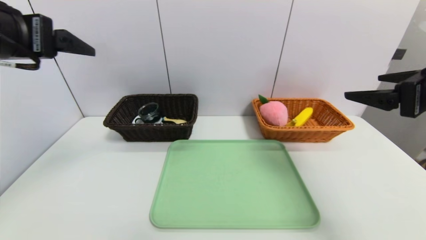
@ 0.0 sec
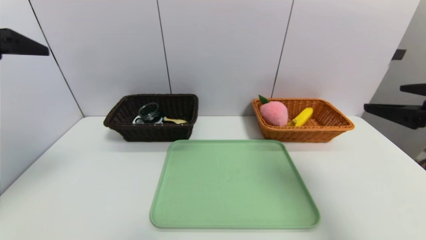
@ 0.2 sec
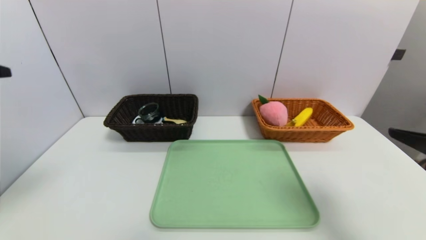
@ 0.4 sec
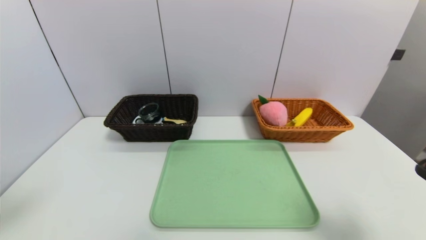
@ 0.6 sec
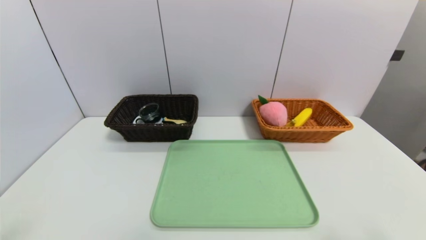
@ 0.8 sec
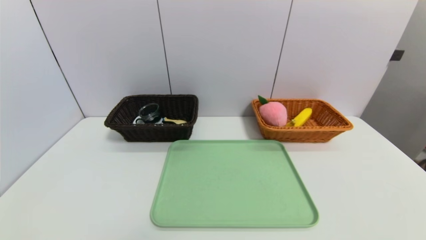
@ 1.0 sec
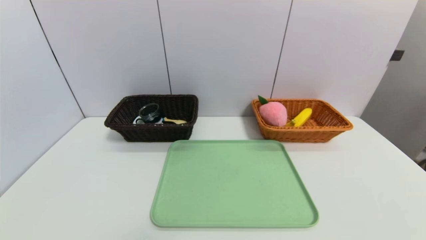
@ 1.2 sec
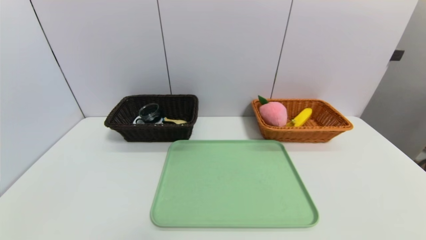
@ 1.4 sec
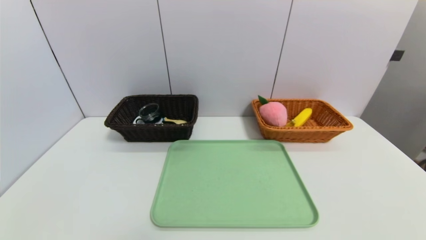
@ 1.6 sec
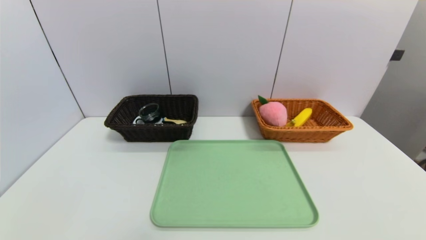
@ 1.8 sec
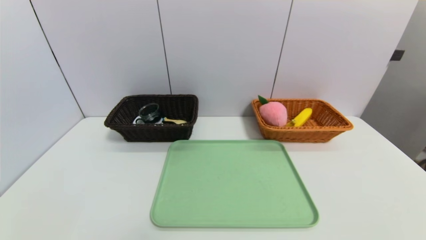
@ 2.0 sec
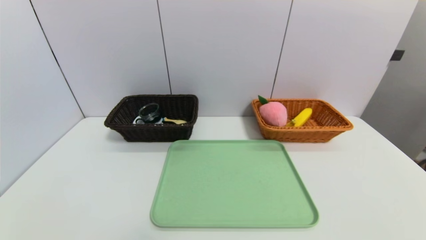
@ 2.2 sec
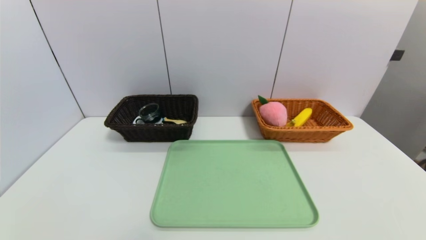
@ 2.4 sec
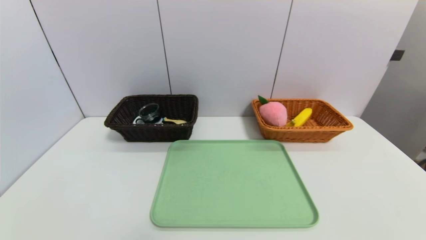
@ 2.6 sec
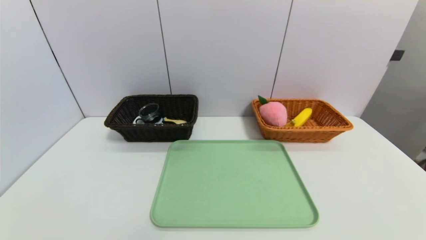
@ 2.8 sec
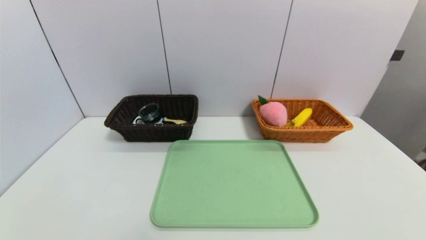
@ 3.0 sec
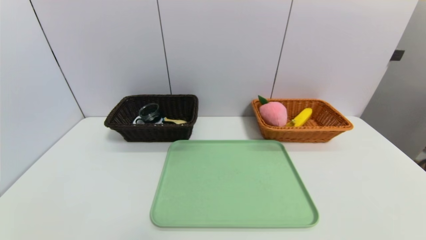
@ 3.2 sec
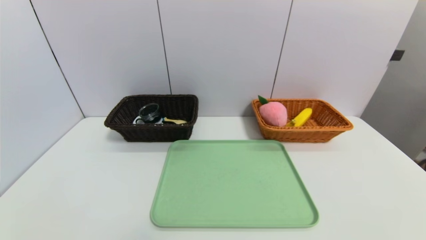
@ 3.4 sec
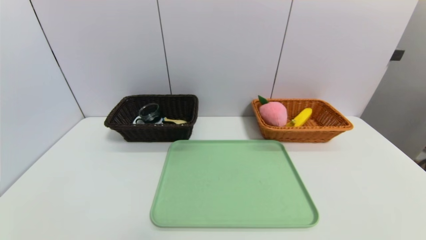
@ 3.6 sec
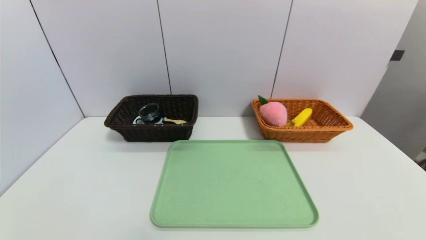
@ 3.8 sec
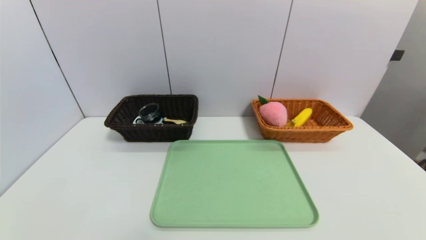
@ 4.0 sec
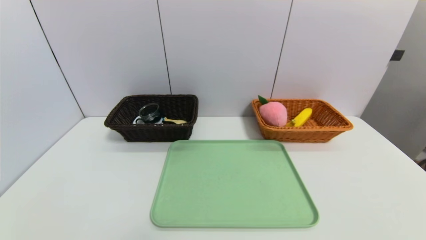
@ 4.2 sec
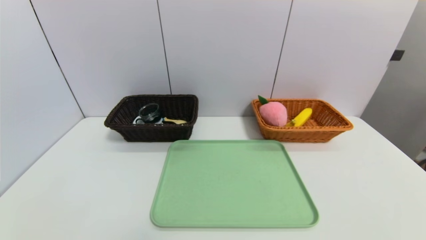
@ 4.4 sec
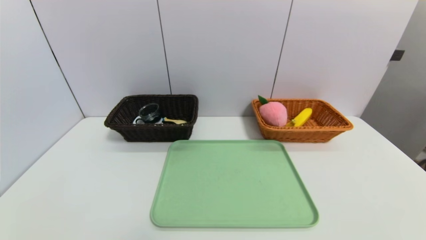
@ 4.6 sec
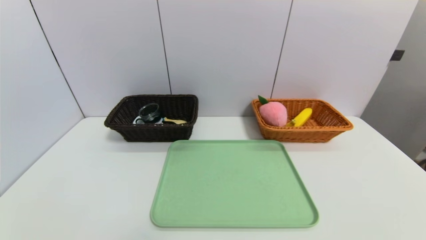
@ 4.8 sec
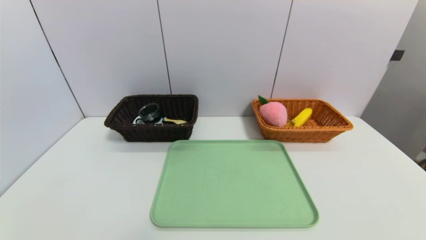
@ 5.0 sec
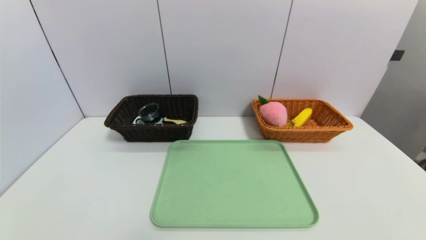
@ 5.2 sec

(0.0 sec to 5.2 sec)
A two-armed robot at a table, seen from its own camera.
Task of the whole recording: place the food in the right basket with the right gripper, and place the non food items in the left basket with the left gripper.
0.0 sec - 1.8 sec: Both grippers travel together downward and backward, approximately 35 cm.
3.4 sec - 5.2 sec: Both grippers stay about where they are.
